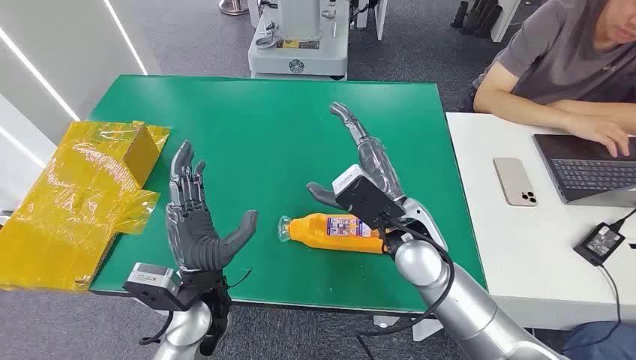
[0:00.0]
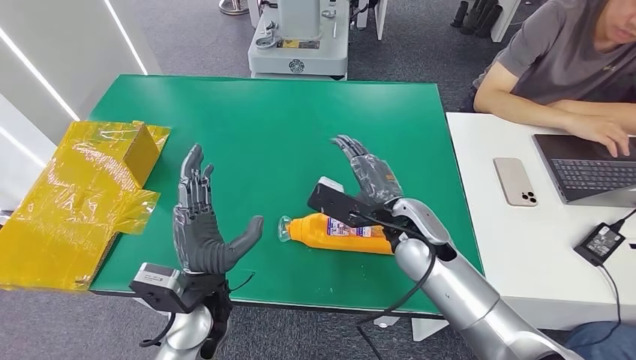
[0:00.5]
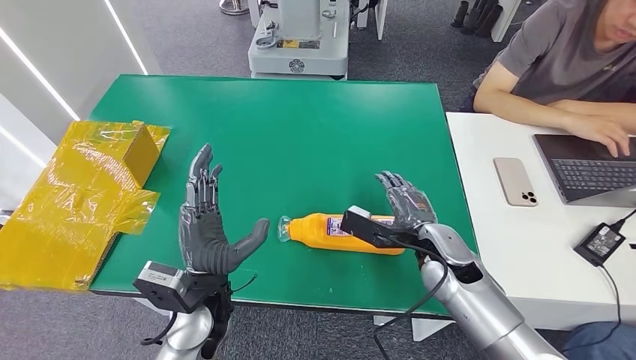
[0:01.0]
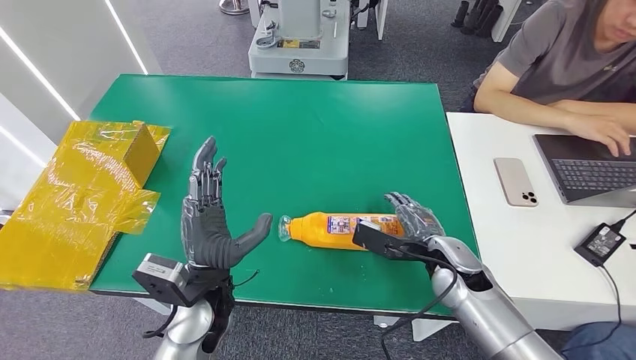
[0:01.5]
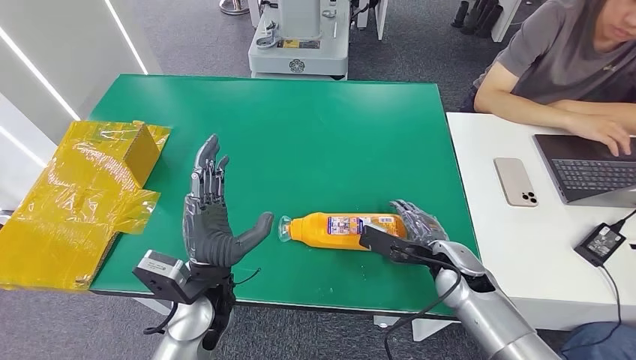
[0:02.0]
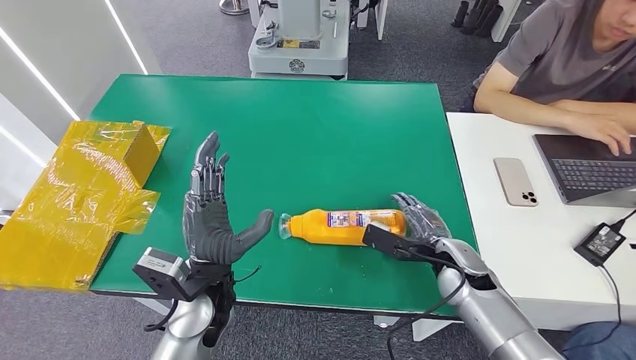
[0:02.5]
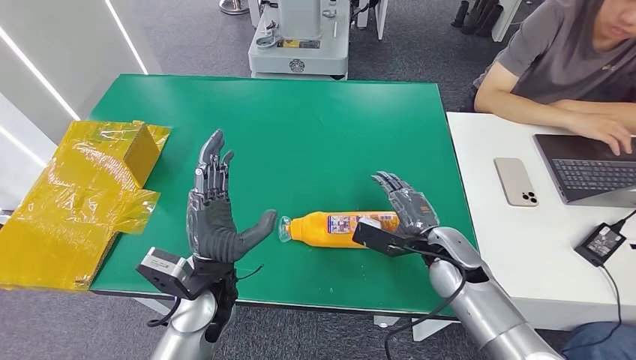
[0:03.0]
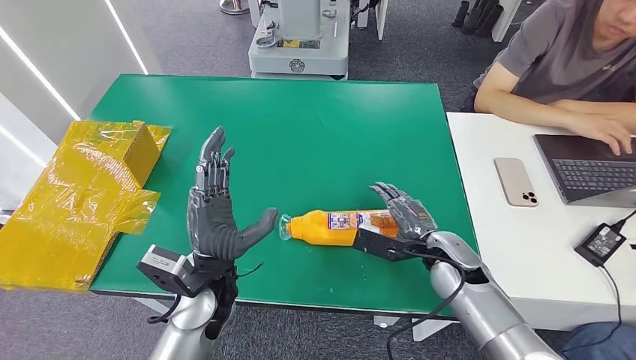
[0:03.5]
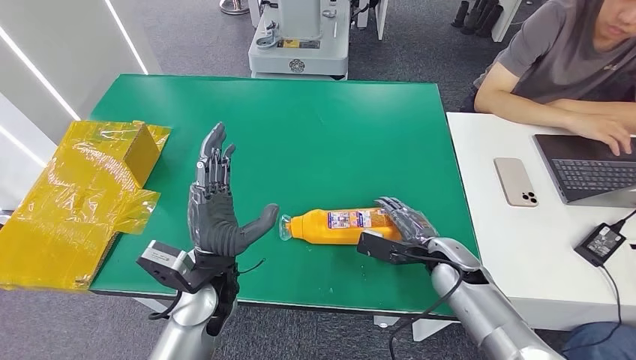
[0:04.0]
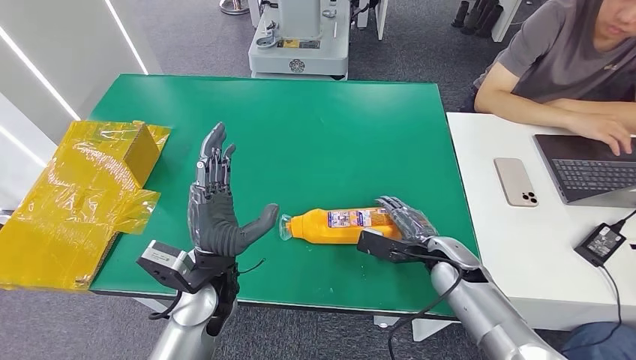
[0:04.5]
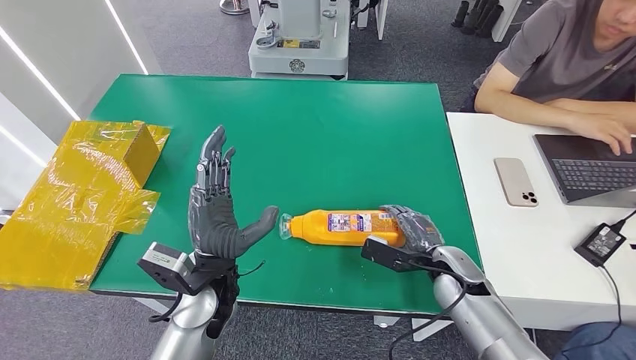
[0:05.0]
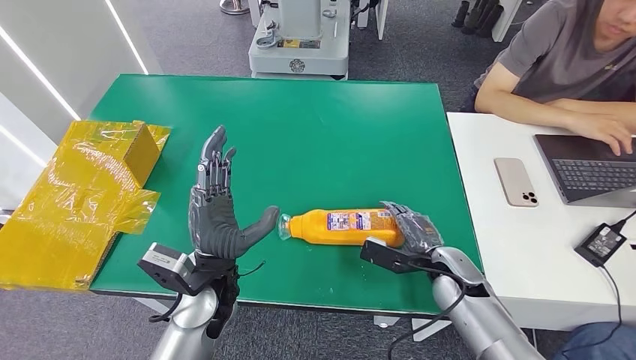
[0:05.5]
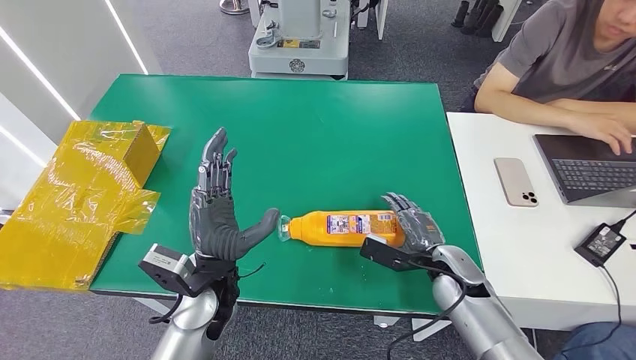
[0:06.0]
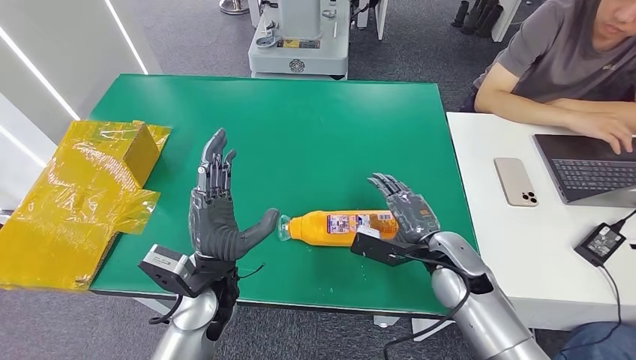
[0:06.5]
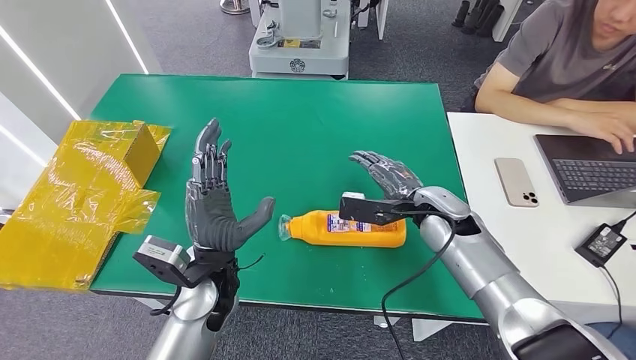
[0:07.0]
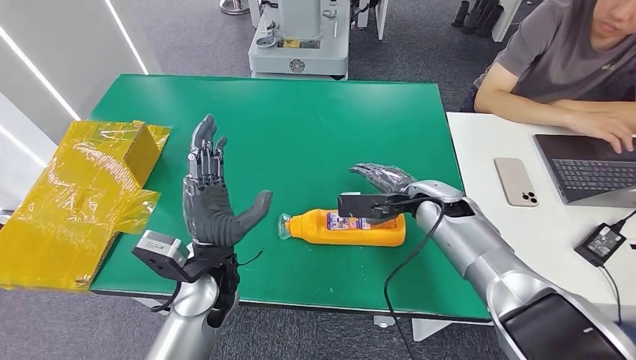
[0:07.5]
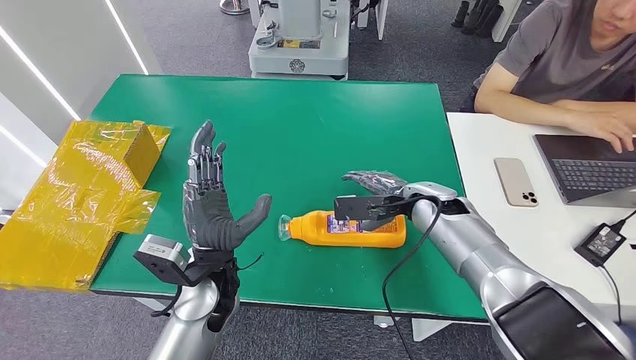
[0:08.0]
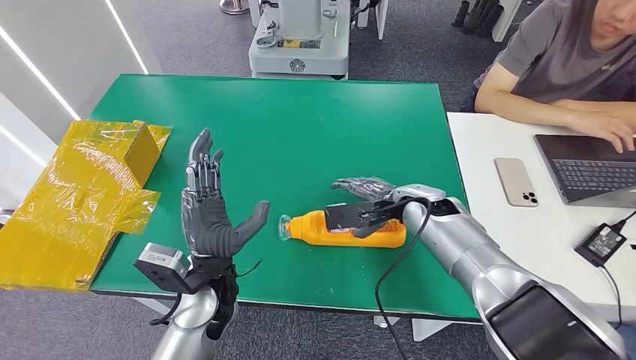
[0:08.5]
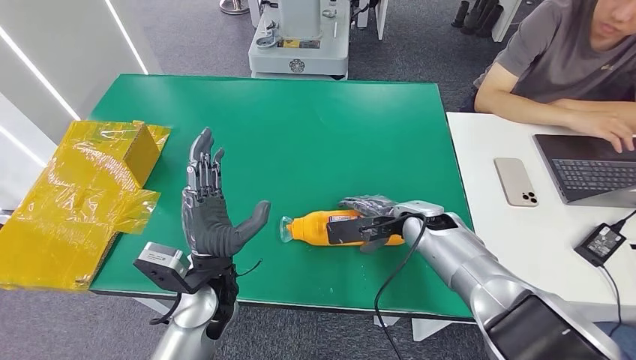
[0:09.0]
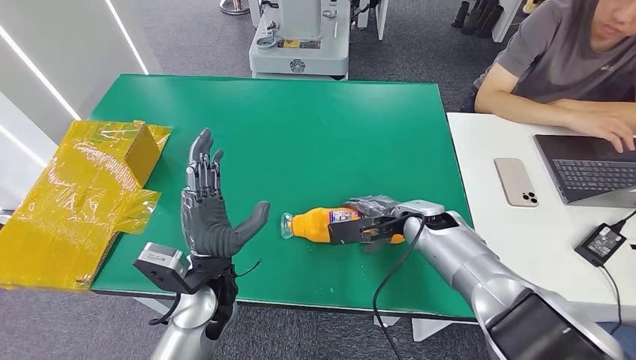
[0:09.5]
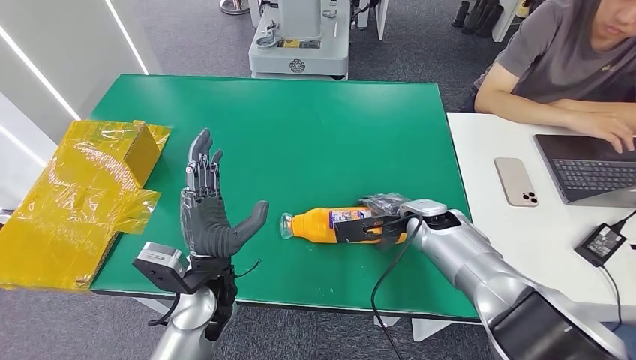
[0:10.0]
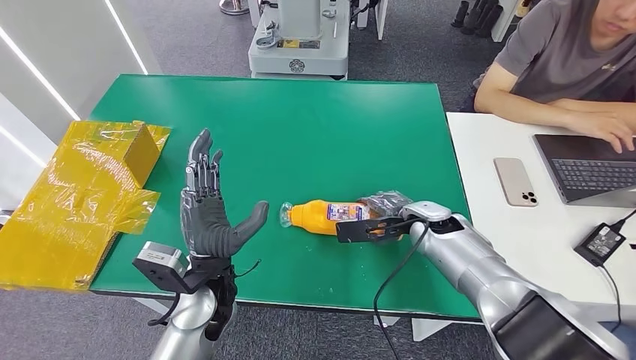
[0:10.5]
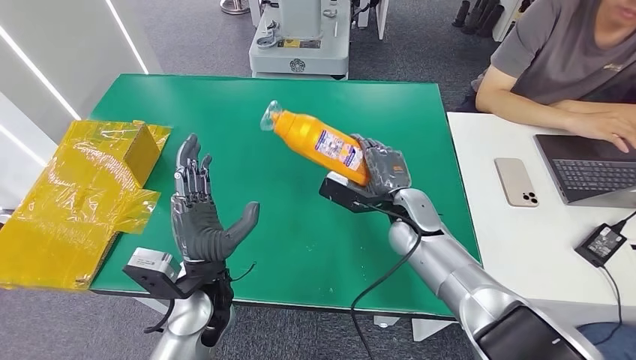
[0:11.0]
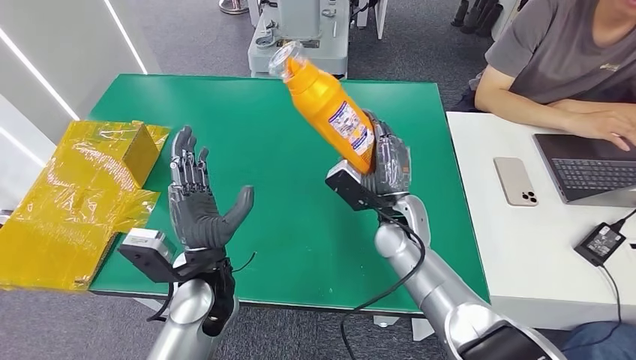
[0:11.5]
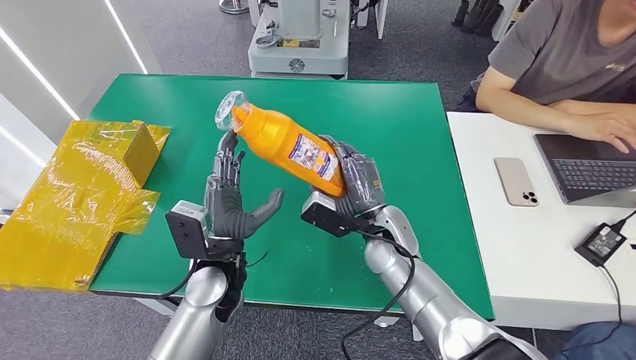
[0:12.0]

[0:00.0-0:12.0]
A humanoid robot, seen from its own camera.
Step, 0:00.0 to 0:11.0: Pick up the bottle from the table.
0:04.0 to 0:06.0: The hands make only small movements.
0:06.0 to 0:08.0: The right hand goes approximately 15 cm forward and upward.
0:08.0 to 0:10.0: The hands make only small movements.

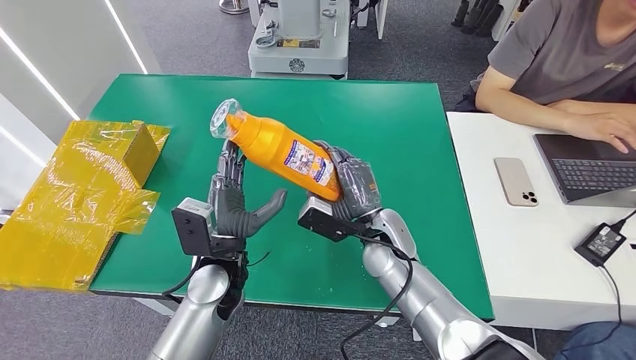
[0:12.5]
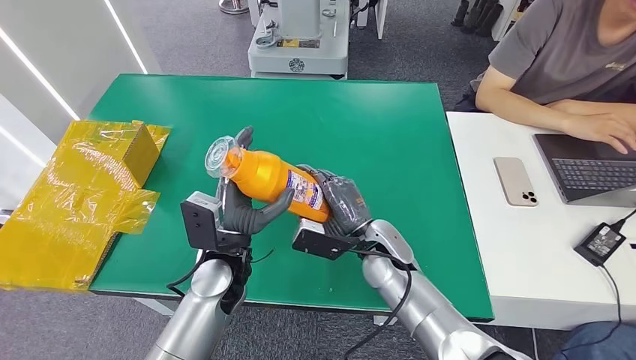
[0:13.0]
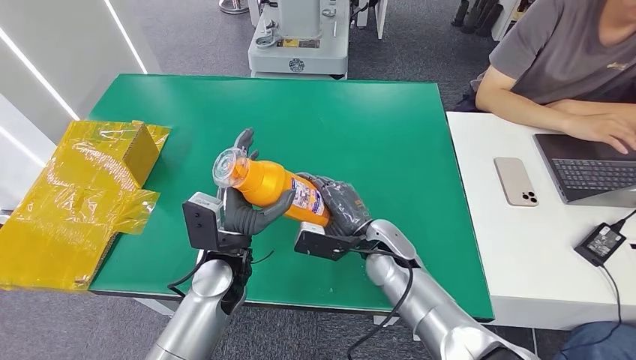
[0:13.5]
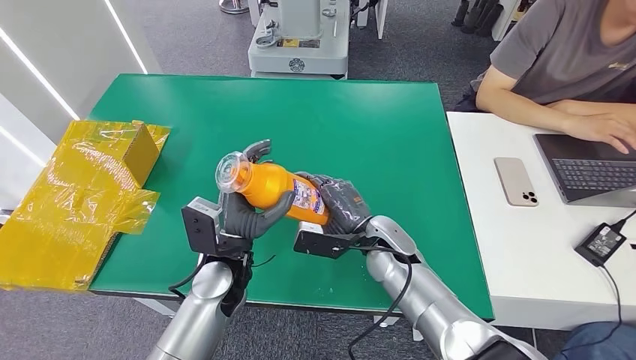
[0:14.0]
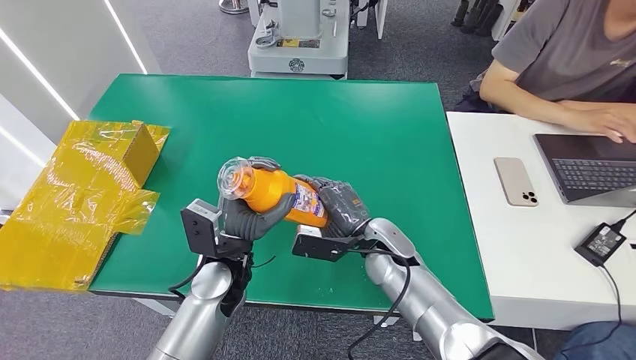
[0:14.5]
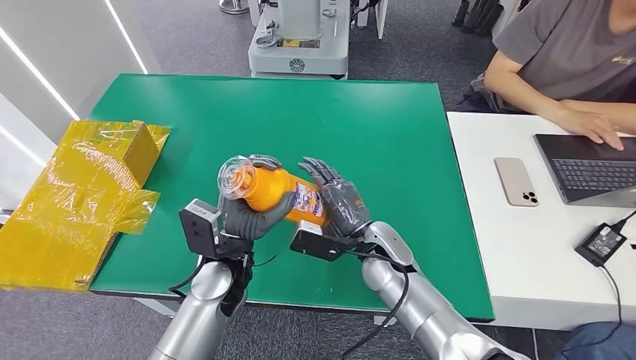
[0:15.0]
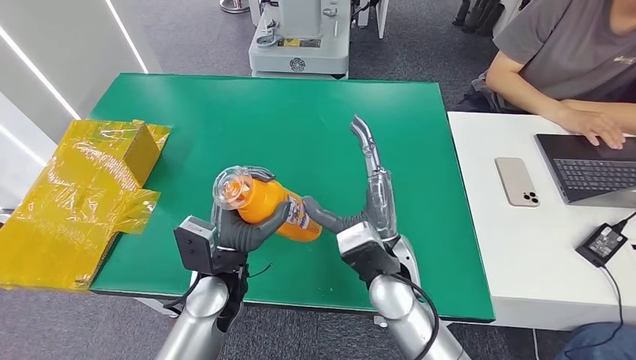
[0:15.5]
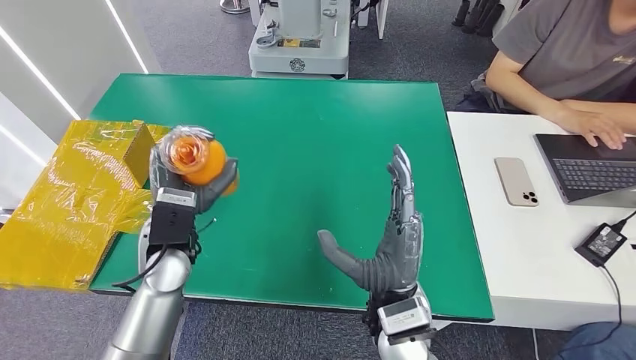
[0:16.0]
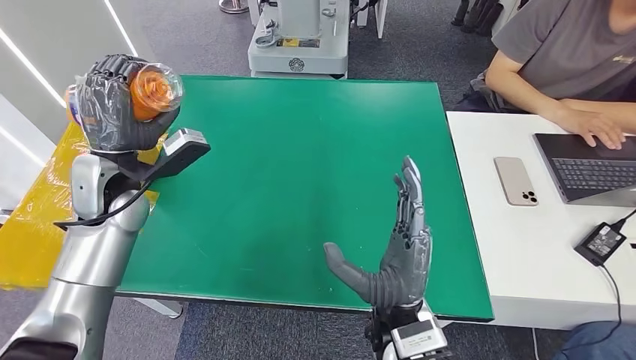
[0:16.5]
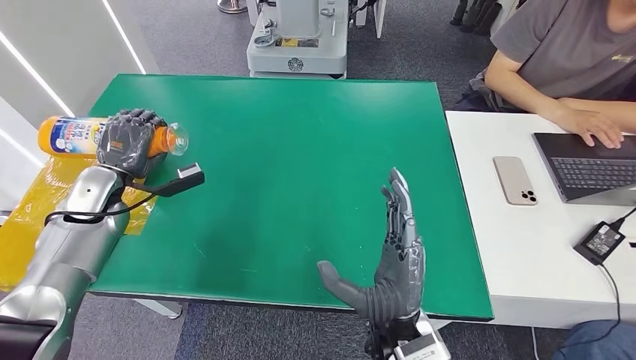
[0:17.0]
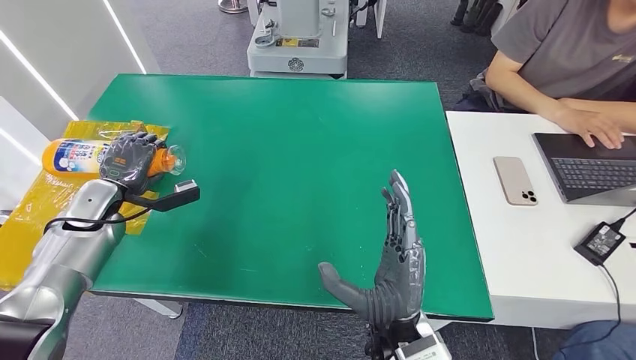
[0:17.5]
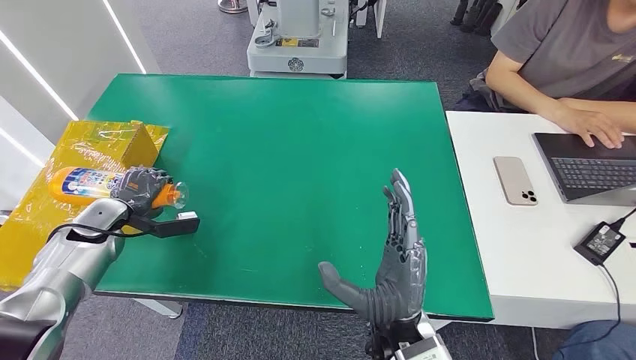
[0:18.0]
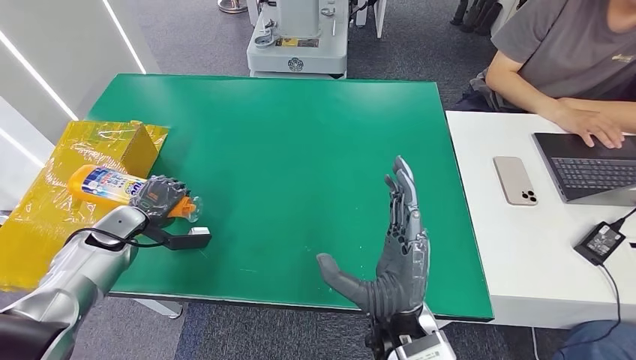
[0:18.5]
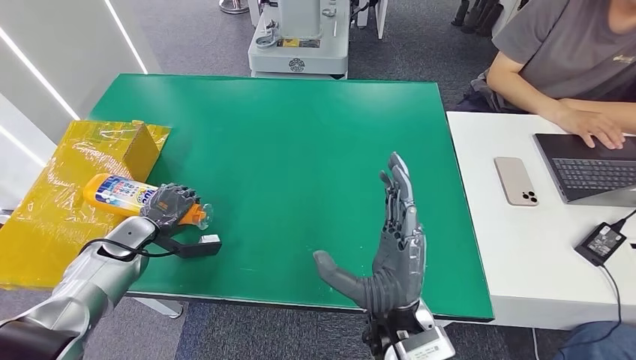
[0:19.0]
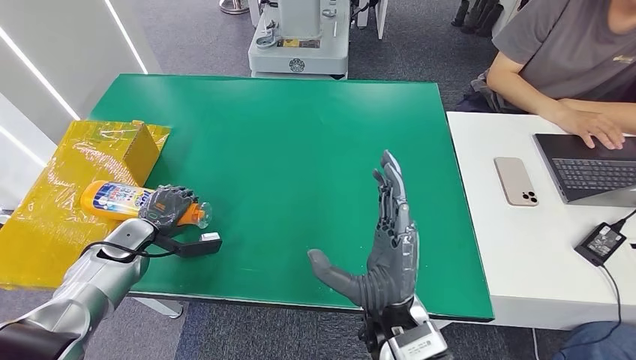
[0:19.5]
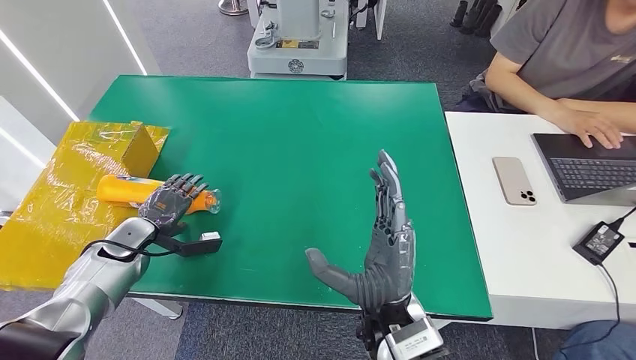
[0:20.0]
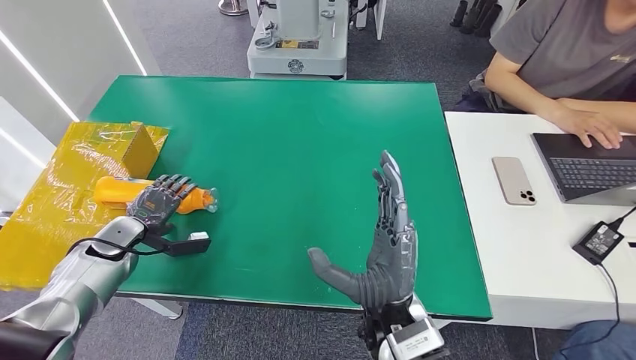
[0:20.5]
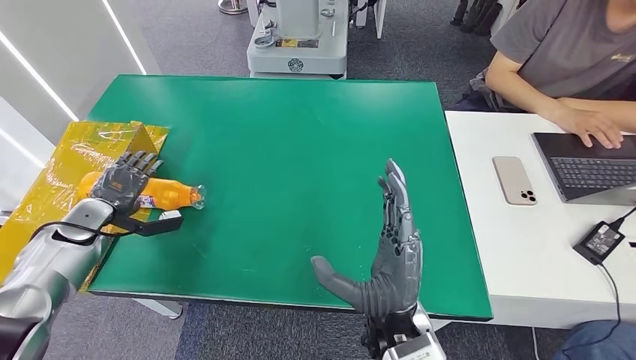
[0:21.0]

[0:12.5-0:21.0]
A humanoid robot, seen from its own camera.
Step, 0:12.5 to 0:21.0: Turn the bottle to the front side.
0:16.5 to 0:19.0: The left hand heads downward and to the left, covering roughly 20 cm.
0:19.0 to 0:21.0: The left hand shifts some 5 cm to the left.
